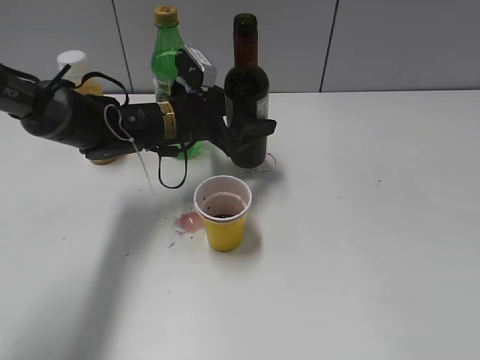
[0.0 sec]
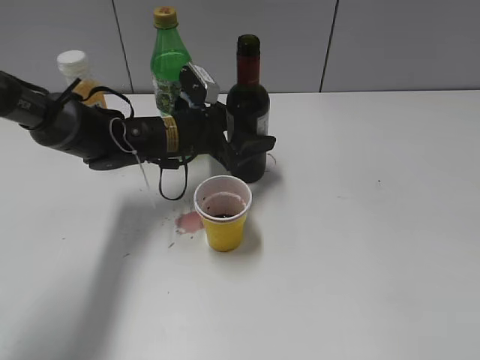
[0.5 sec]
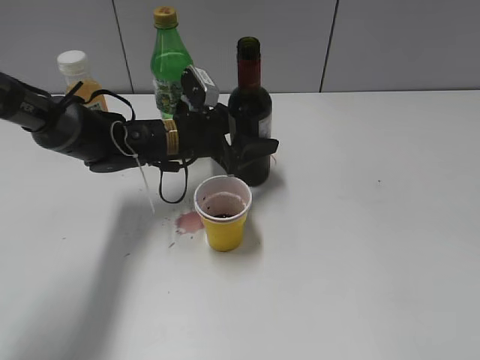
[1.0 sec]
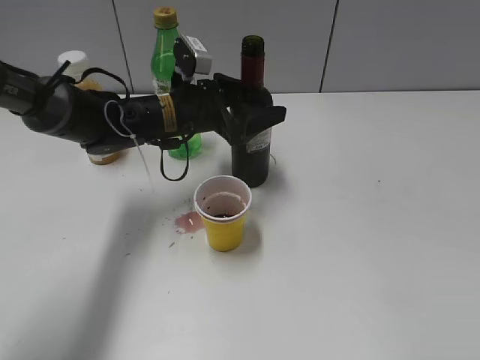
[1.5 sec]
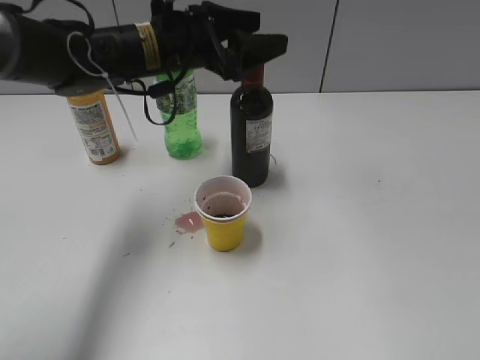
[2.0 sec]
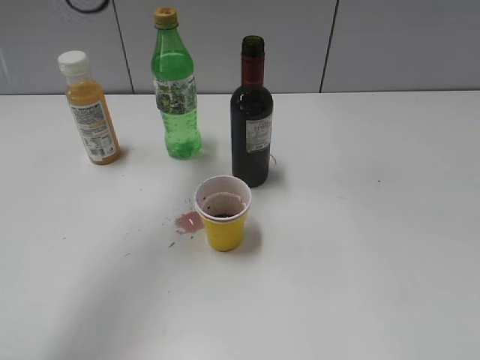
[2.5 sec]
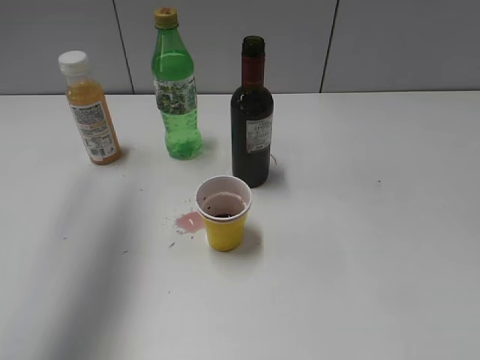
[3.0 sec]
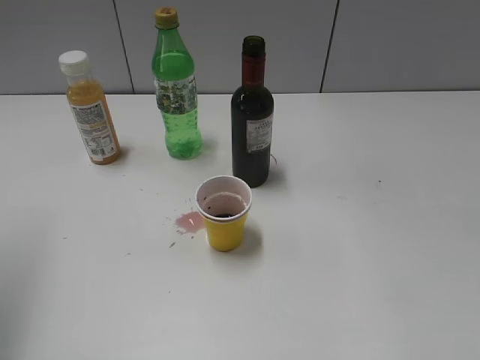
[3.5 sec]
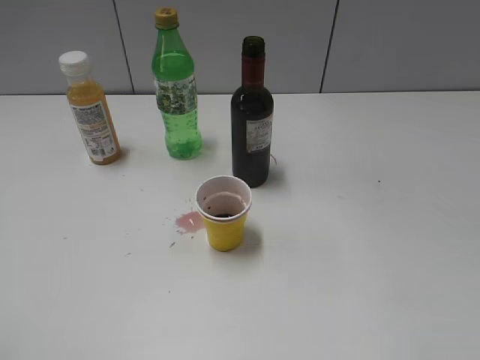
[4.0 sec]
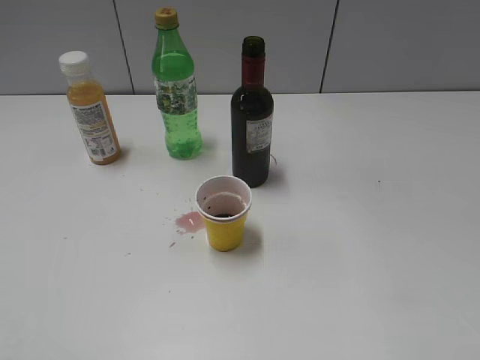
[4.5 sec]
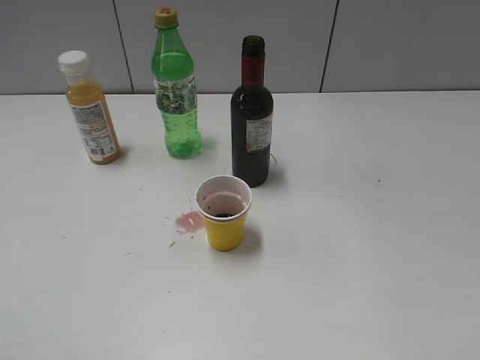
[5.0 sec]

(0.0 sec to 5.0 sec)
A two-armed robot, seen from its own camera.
0.0 sec - 2.5 sec: The left gripper heads upward, covering about 25 cm.
2.5 sec - 5.0 sec: The left gripper is displaced backward and to the left by some 40 cm.

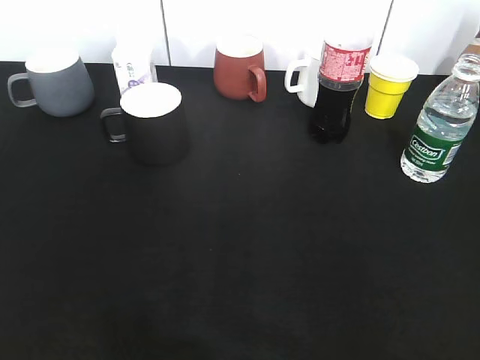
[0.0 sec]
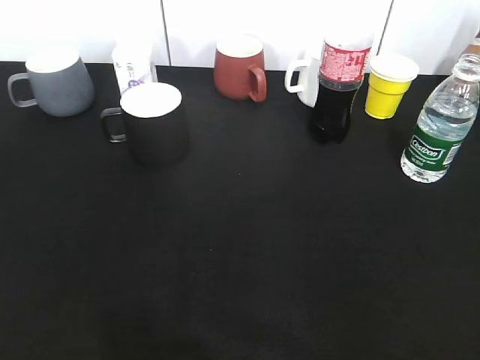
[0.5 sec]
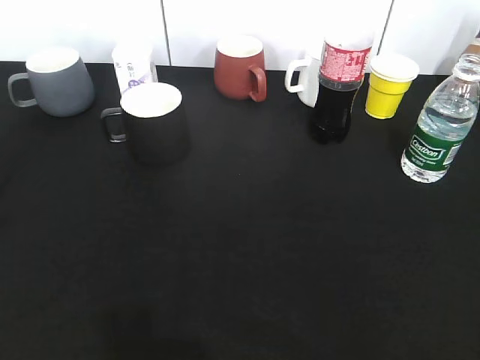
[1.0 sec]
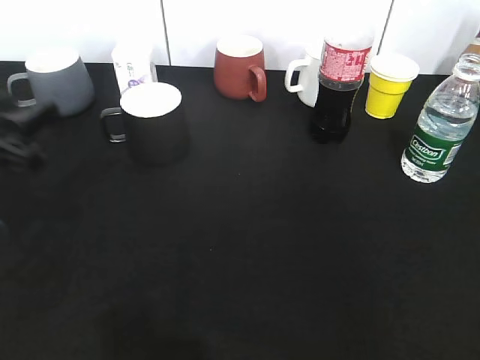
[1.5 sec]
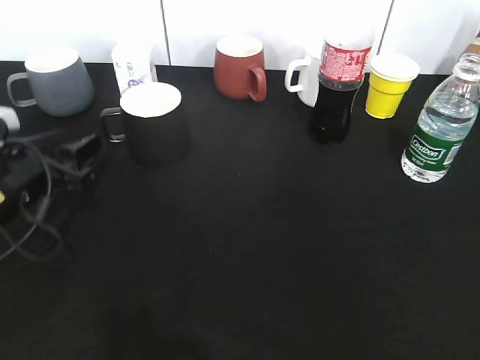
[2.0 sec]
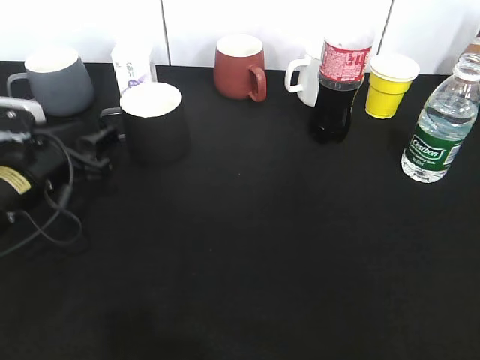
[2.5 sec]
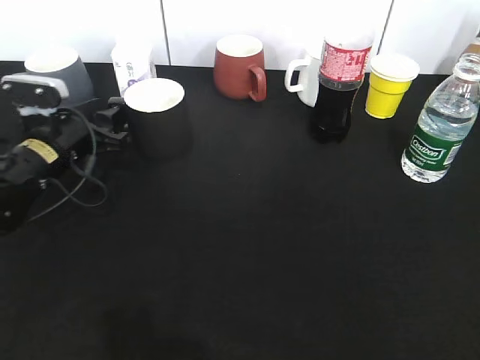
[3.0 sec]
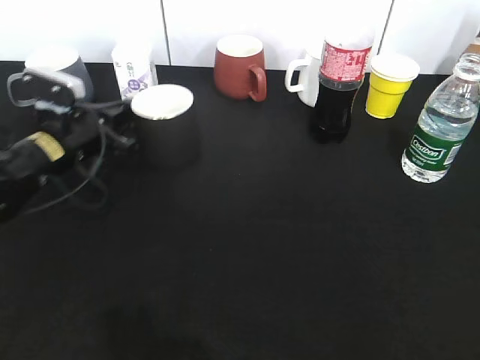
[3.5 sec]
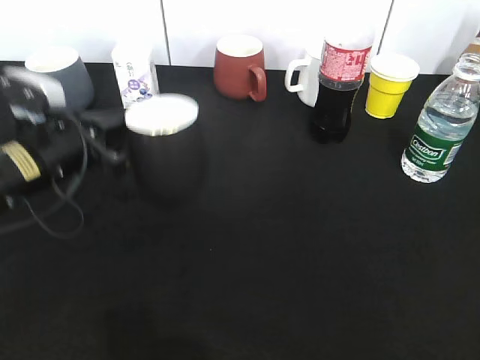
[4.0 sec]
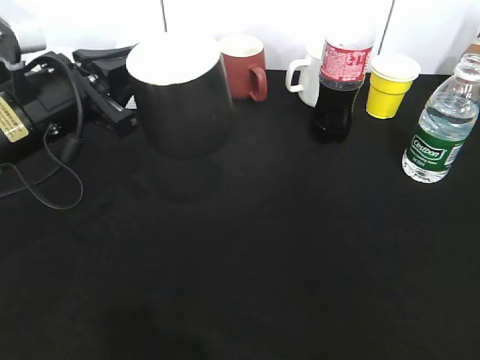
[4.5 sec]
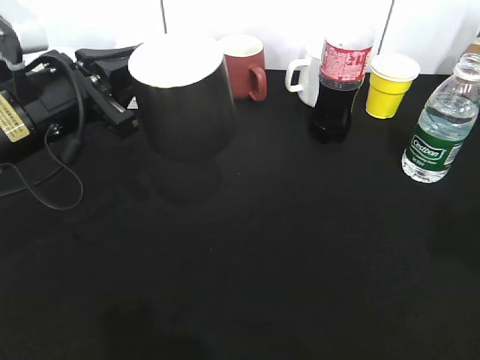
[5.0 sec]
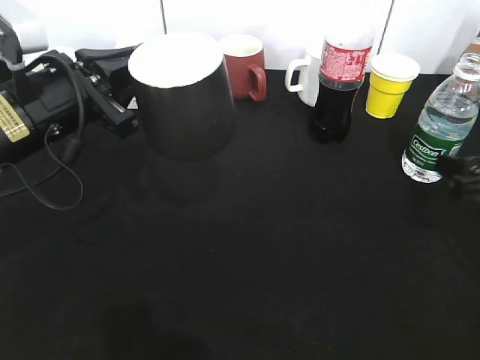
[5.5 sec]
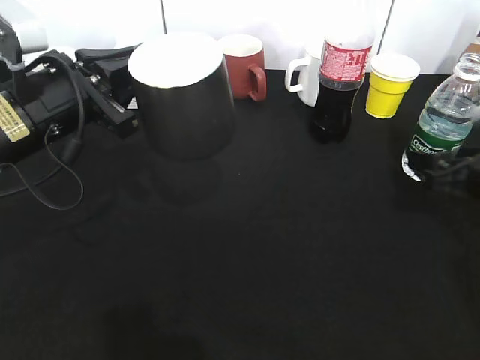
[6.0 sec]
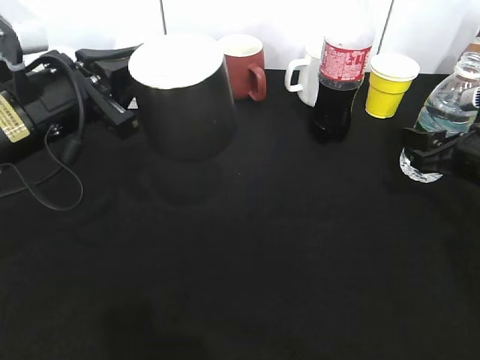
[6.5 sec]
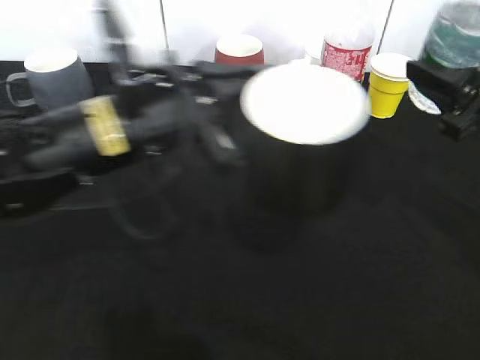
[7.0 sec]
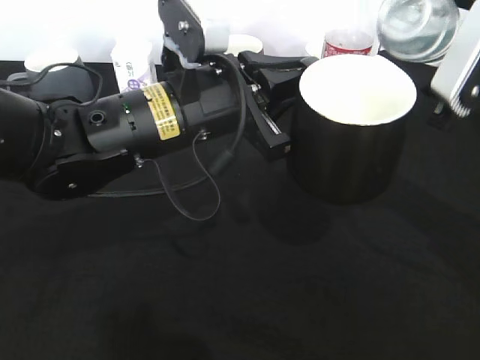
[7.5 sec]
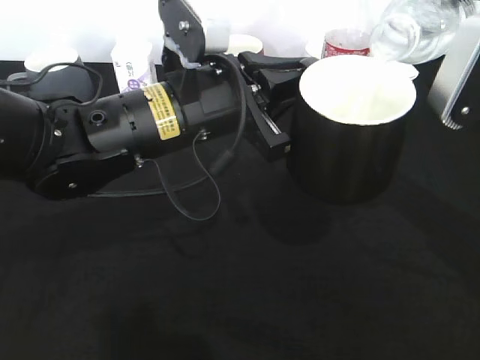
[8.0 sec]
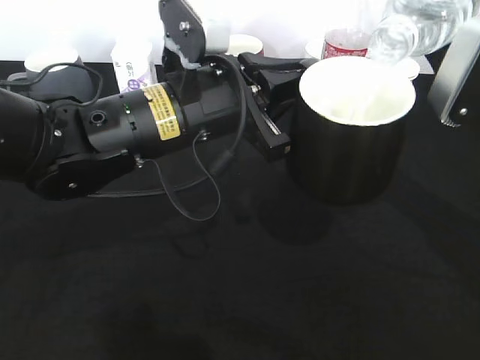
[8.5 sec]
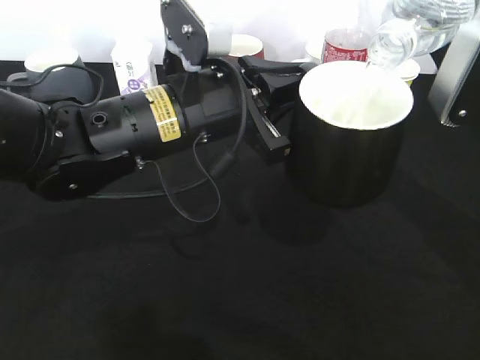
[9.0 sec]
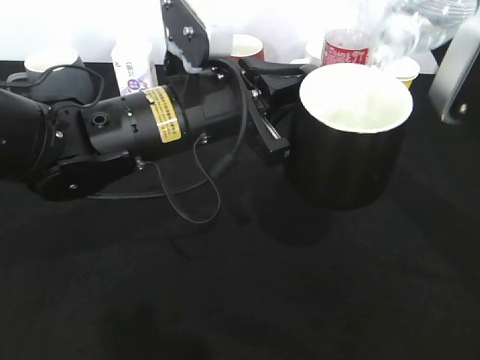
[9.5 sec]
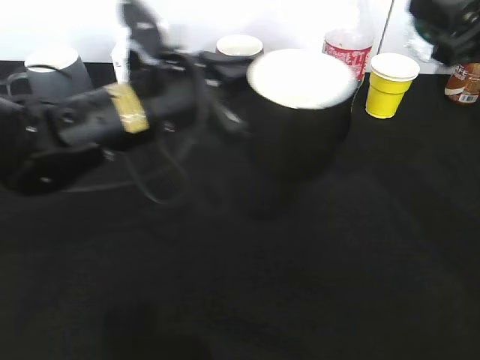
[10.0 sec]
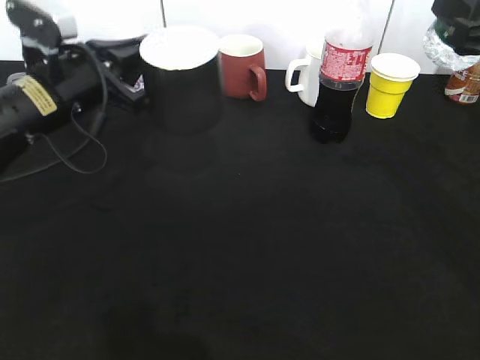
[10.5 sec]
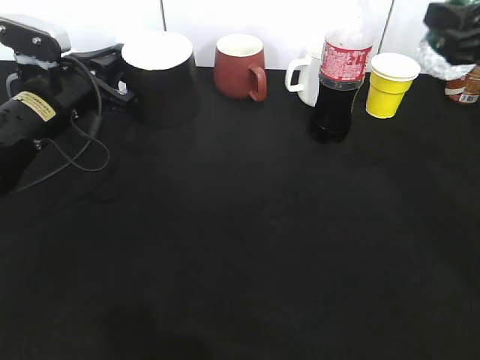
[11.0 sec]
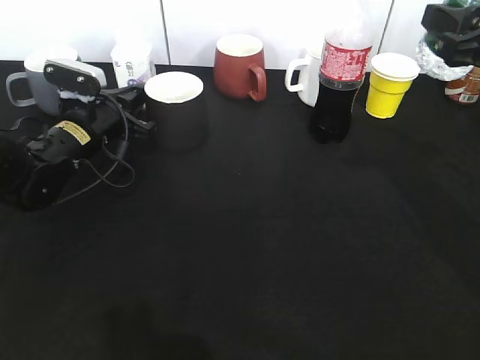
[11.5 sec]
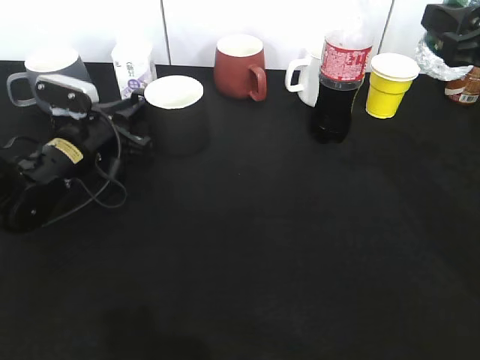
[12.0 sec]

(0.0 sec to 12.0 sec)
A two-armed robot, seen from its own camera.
Step, 1.0 sec - 3.0 sec: Grasp the black cup with left gripper.
Step, 3.5 sec - 4.0 sec: Lift the black cup with left gripper.
Step, 4.5 sec - 6.0 sec: Grasp the bottle with water with right gripper.
Step, 6.5 sec - 9.5 sec: Pour the water from bottle to cup with right gripper.
0.0 sec - 2.0 sec: The left gripper moves forward and downward, roughly 30 cm.
2.0 sec - 4.0 sec: The left gripper closes.
4.0 sec - 6.0 sec: The right gripper shifts roughly 30 cm forward and downward, and opens its fingers; the left gripper goes roughly 5 cm upward.
6.0 sec - 8.0 sec: The right gripper goes some 15 cm upward and to the left, and closes. Meanwhile the left gripper heads to the right, covering roughly 15 cm.
8.0 sec - 10.0 sec: The left gripper moves some 5 cm.
10.0 sec - 12.0 sec: The left gripper moves downward, to the left and forward, about 20 cm.

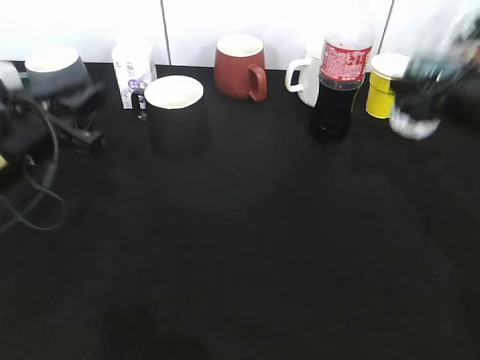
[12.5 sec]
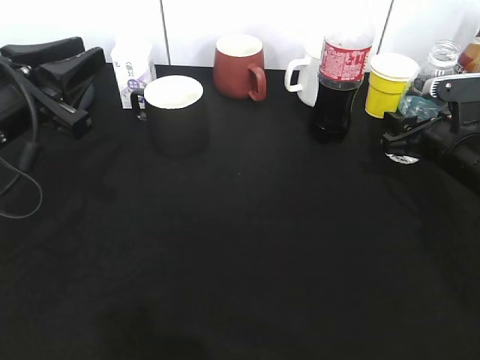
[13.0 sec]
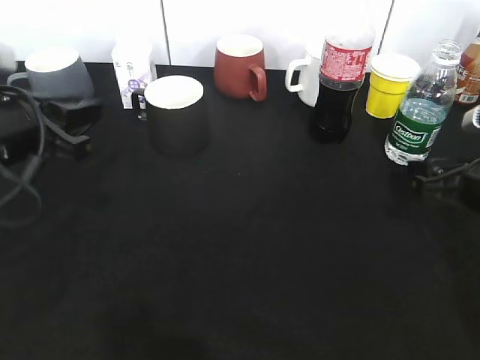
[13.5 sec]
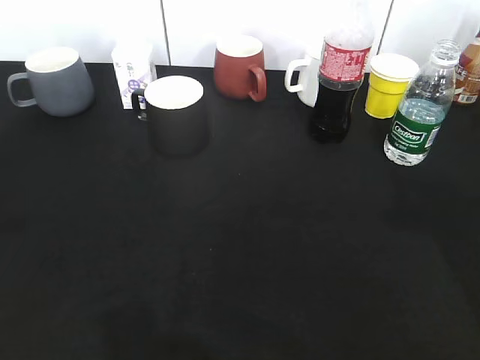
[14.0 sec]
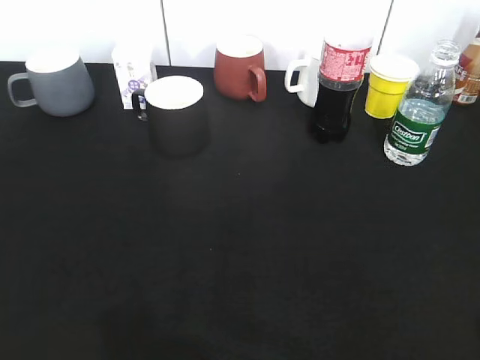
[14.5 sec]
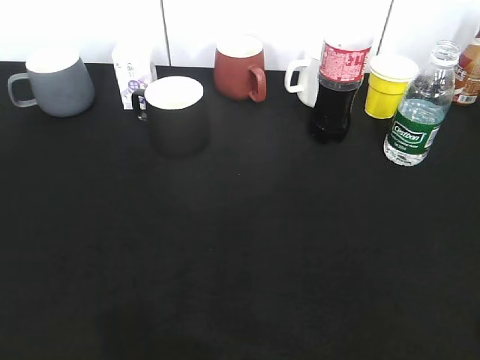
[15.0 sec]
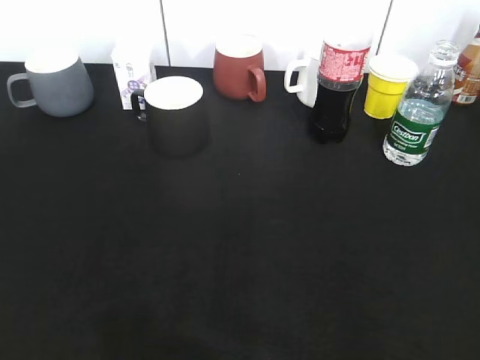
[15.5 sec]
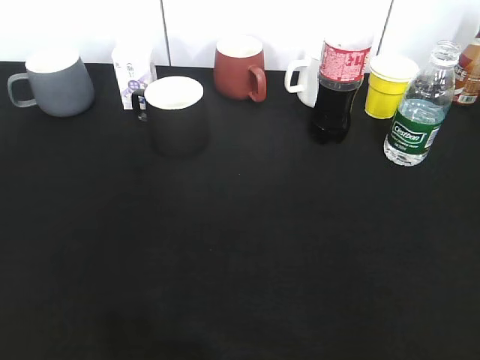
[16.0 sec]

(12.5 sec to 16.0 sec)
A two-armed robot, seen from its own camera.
Step, 12.5 sec - 13.5 sec: Place the water bottle on the table with right gripper.
12.5 sec - 14.5 sec: The grippers both shift backward by approximately 30 cm. The right gripper opens.

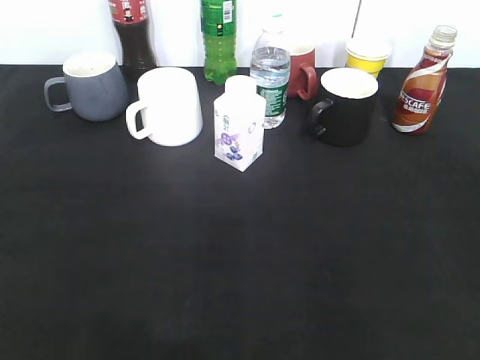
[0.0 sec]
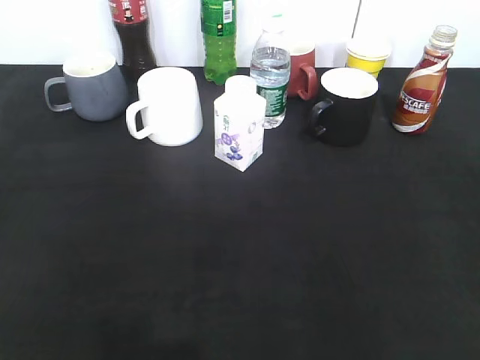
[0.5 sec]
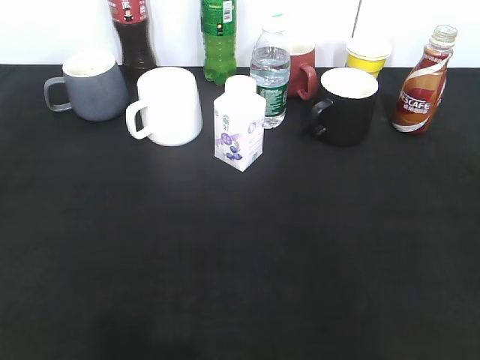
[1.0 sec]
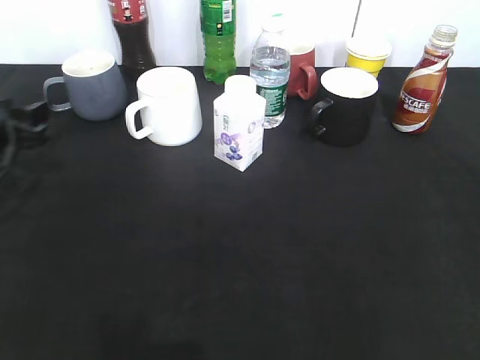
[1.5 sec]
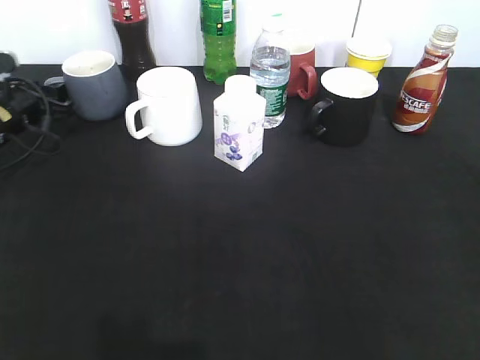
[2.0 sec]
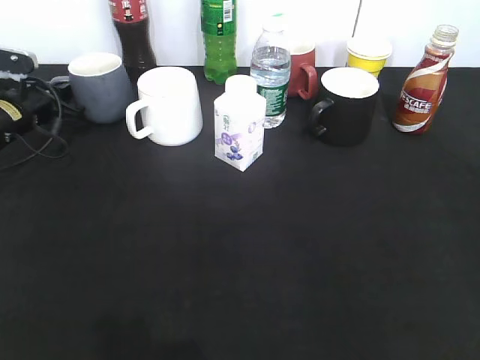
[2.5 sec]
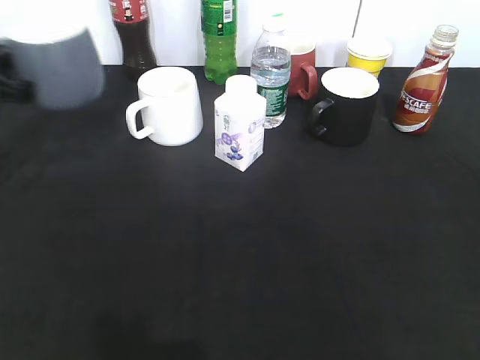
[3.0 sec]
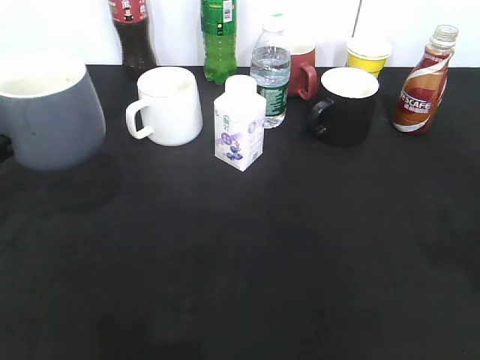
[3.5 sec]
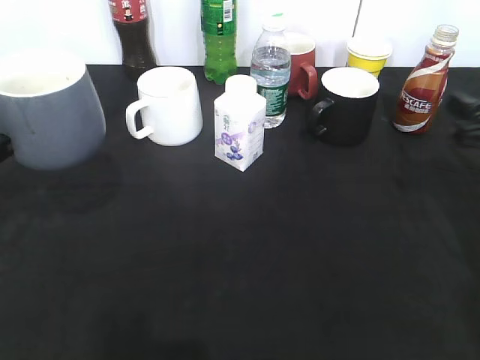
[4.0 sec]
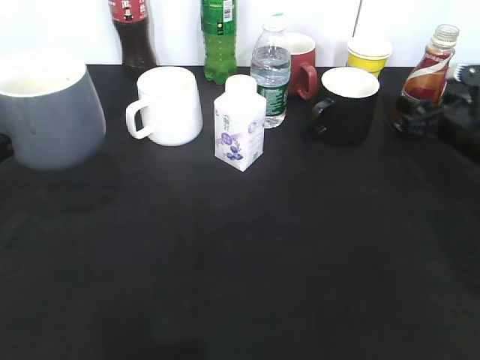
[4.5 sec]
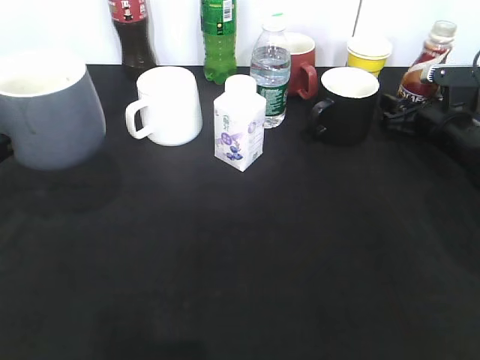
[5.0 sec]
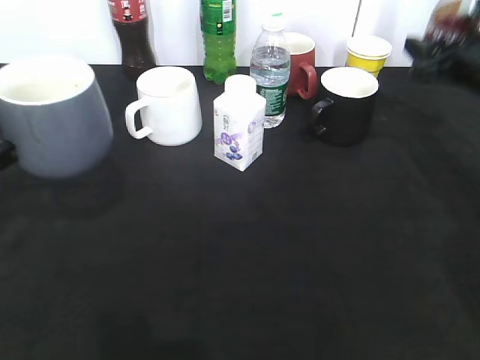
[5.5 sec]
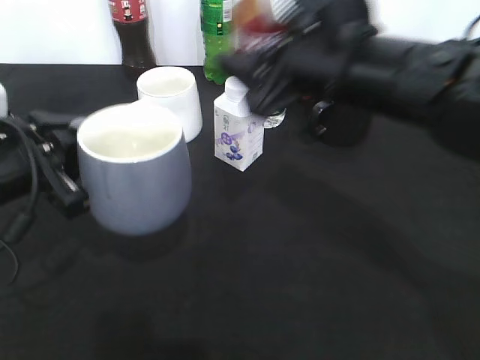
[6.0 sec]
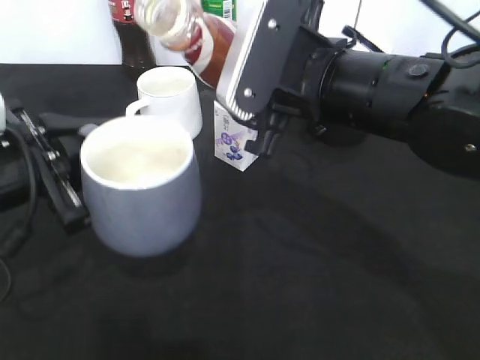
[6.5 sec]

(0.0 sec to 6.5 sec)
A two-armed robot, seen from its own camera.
Step, 0.0 sec - 2.0 sec: Grasp the grey cup with left gripper.
Step, 2.5 sec - 3.5 sec: Lift the grey cup with left gripper.
Step, 4.0 sec - 5.0 sec: Grasp the bottle with coffee with right gripper.
0.0 sec - 2.0 sec: The left gripper shifts roughly 40 cm forward.
2.0 sec - 4.5 sec: The left gripper goes some 20 cm backward and upward, and closes. Meanwhile the right gripper travels forward and downward by some 40 cm, and opens up.
4.5 sec - 6.5 sec: The left gripper shifts approximately 10 cm to the right; the right gripper is displaced to the left, upward and backward by approximately 30 cm, and closes.
